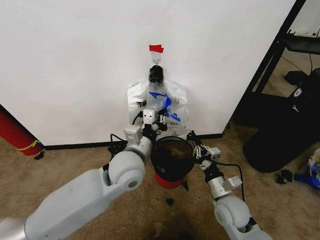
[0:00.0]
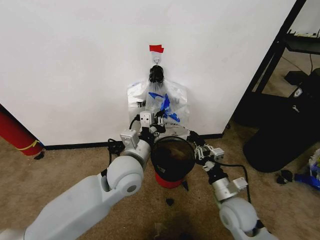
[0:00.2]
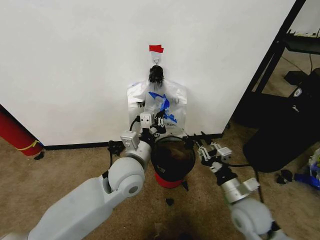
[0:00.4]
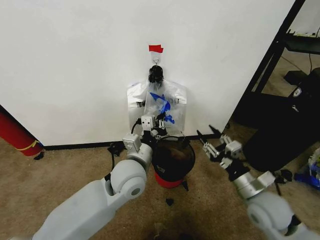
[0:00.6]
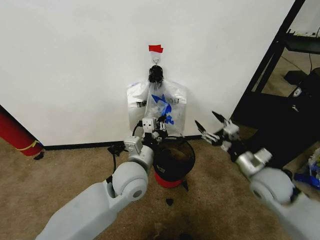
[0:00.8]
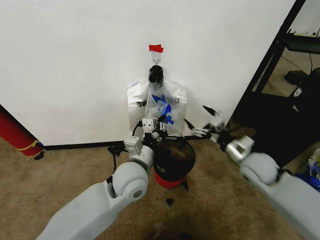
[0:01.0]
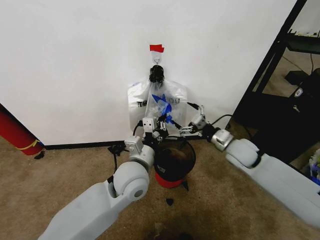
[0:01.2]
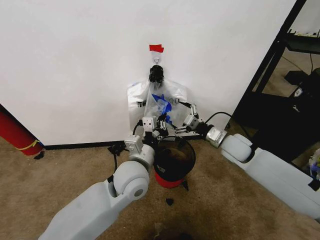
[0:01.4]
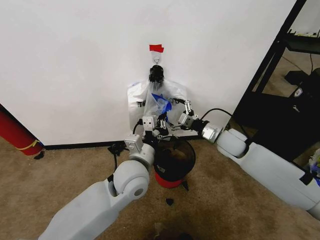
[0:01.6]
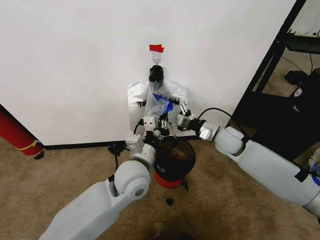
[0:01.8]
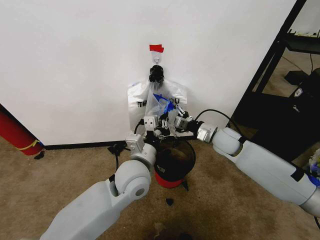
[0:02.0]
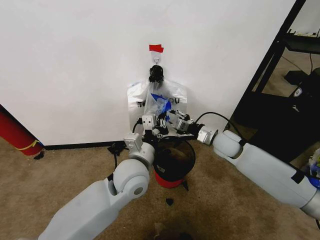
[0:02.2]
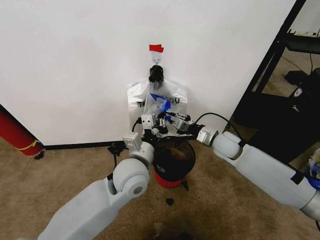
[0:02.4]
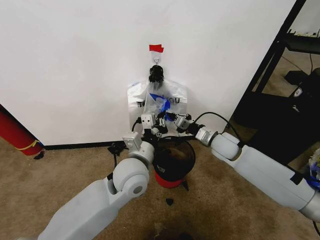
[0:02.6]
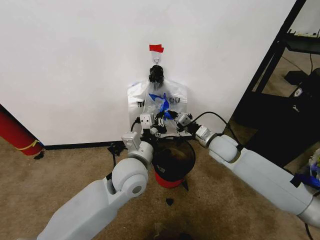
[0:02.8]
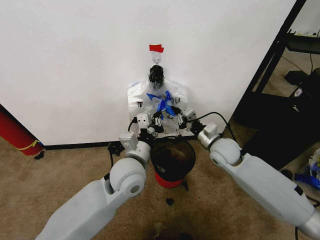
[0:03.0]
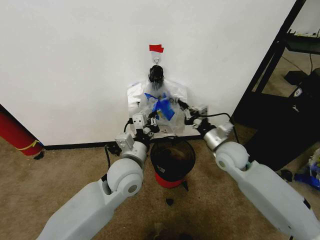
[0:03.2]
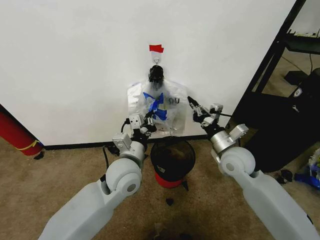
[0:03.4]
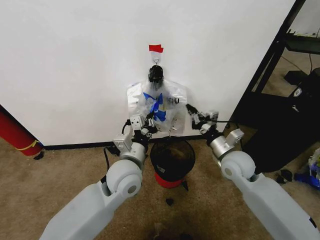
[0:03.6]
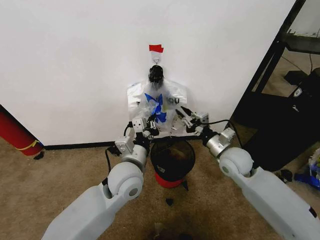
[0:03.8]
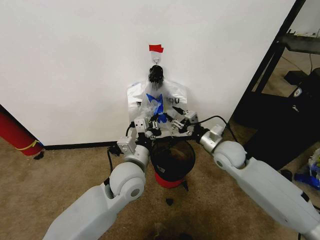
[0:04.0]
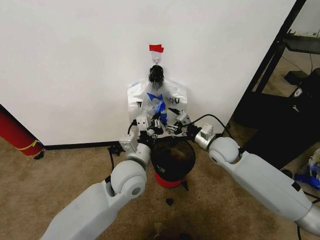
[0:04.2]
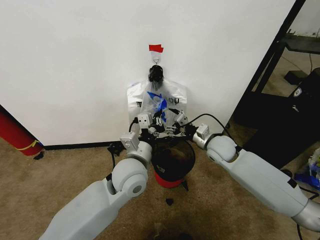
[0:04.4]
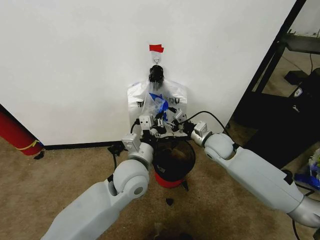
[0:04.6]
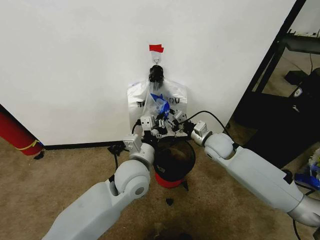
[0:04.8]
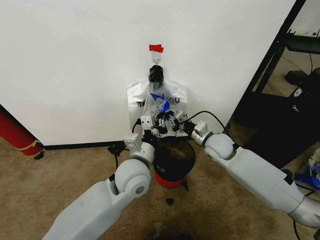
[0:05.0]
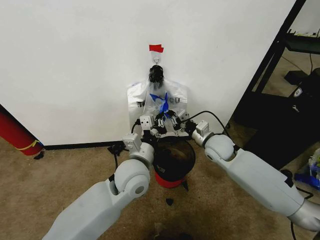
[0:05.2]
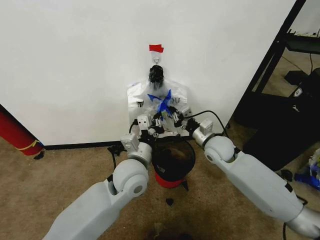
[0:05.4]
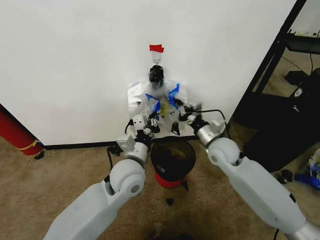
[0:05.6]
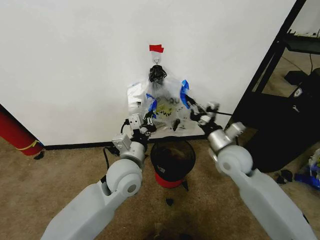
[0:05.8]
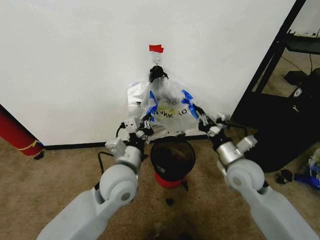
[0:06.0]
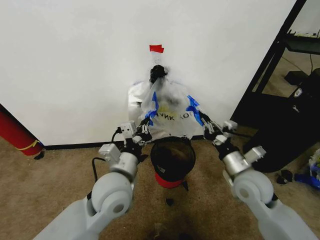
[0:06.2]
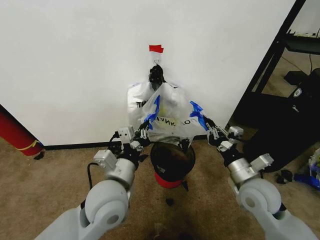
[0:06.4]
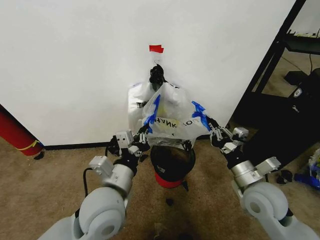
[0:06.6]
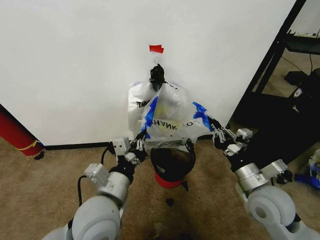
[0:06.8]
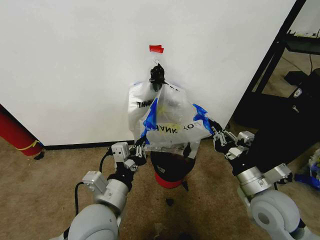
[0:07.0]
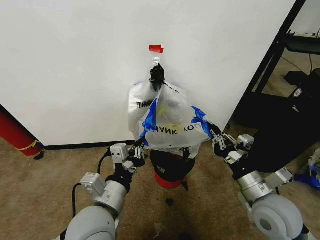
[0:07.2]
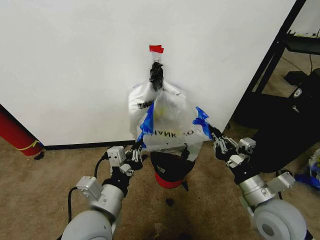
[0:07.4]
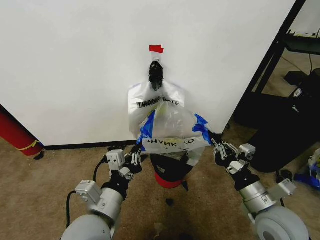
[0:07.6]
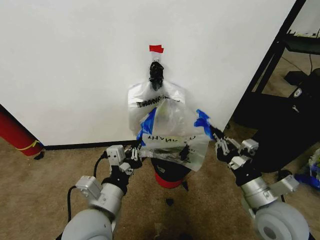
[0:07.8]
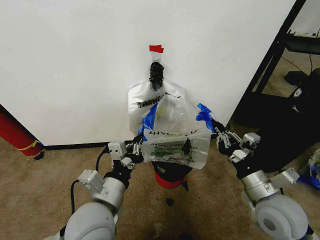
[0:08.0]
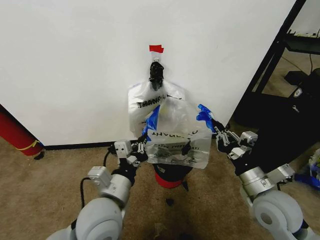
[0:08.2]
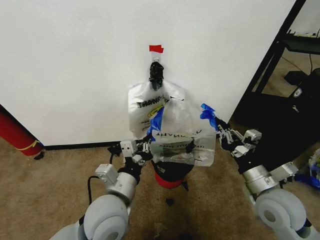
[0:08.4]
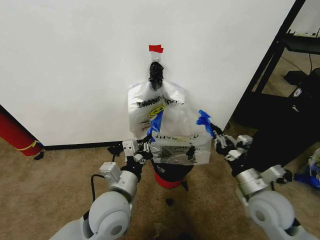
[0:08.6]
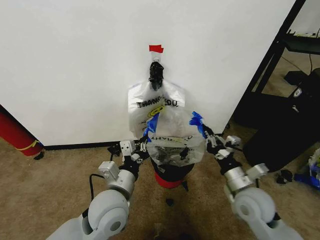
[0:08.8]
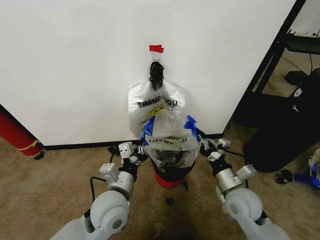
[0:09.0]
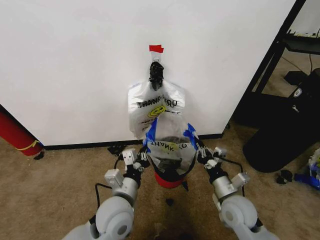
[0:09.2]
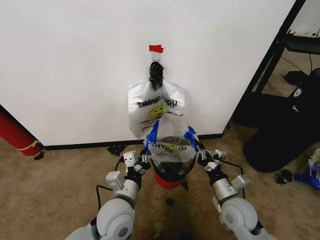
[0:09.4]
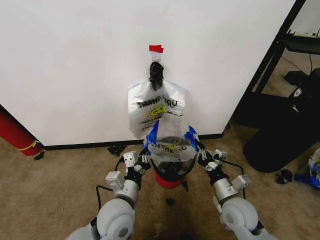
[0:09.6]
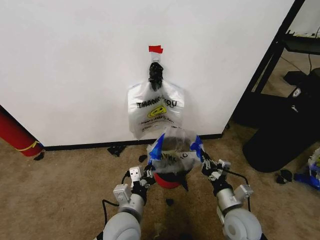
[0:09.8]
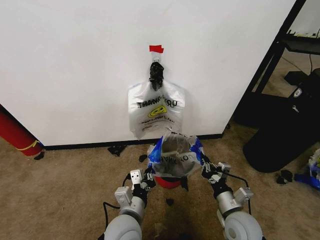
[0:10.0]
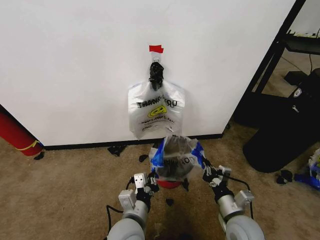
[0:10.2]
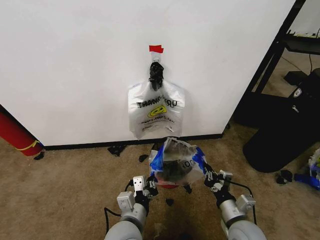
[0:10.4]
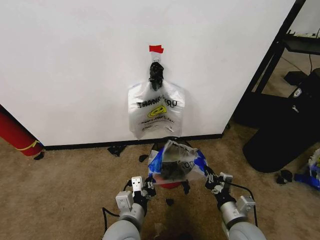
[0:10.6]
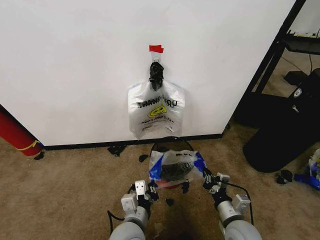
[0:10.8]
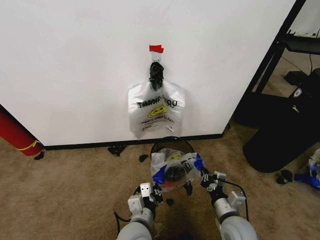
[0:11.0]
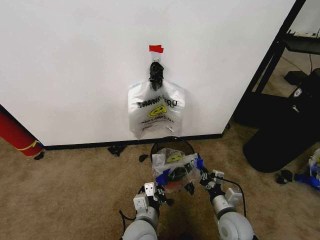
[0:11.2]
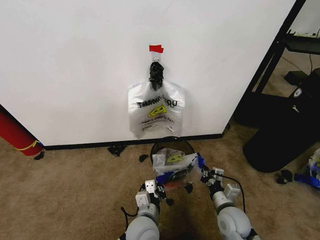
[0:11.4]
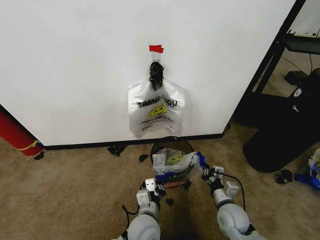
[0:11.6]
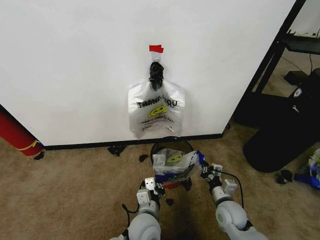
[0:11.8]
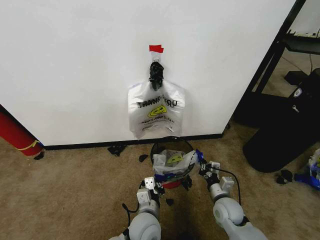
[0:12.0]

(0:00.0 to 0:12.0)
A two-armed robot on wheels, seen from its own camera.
Task of the whole recording: Pick up the garbage bag from the wall and place it over the trash bin.
0:00.0 - 0:01.6: The right gripper goes about 20 cm forward and upward, and opens.
0:01.6 - 0:03.0: The right gripper closes up.
0:03.0 - 0:04.4: The right gripper opens its fingers.
0:04.4 - 0:06.0: The right gripper shifts about 10 cm backward, and closes up.
0:06.0 - 0:07.6: Both grippers travel together backward, roughly 15 cm.
0:07.6 - 0:09.0: Both grippers travel together forward and downward, roughly 10 cm.
0:09.0 - 0:10.4: The left gripper heads backward, covering approximately 5 cm. Meanwhile the right gripper heads backward and downward, covering approximately 10 cm.
0:10.4 - 0:12.0: The right gripper is displaced forward and downward by some 10 cm; the left gripper moves downward, about 5 cm.

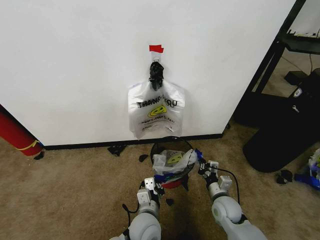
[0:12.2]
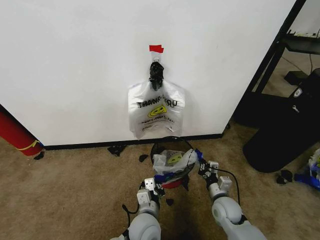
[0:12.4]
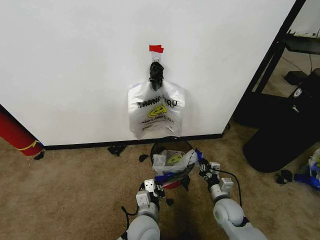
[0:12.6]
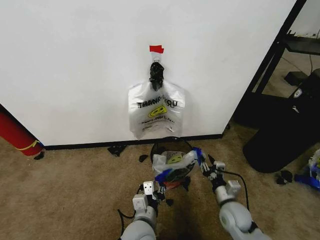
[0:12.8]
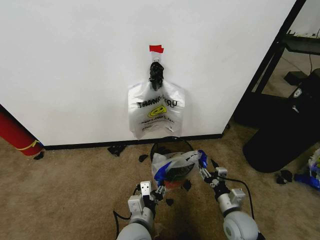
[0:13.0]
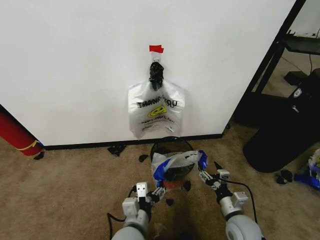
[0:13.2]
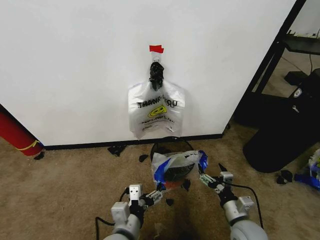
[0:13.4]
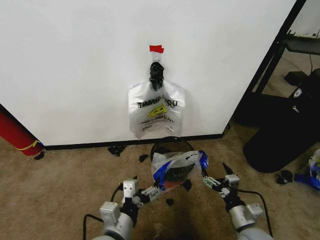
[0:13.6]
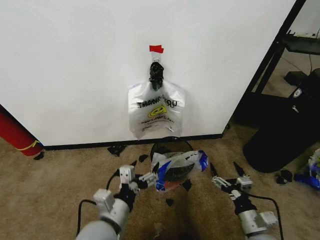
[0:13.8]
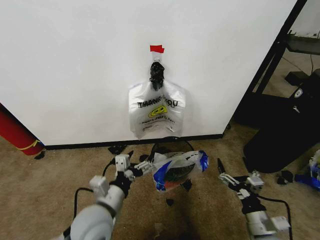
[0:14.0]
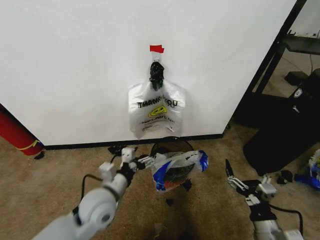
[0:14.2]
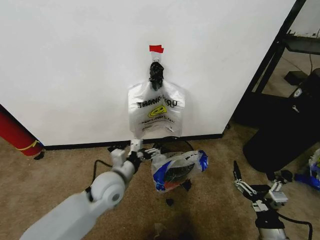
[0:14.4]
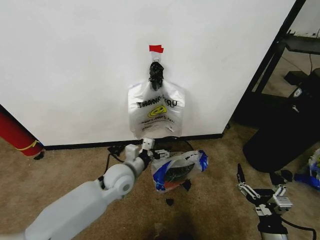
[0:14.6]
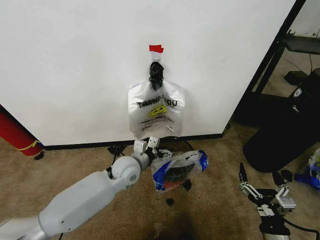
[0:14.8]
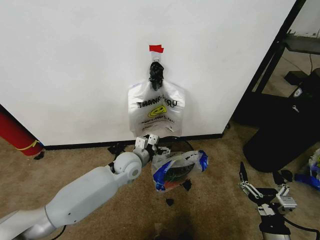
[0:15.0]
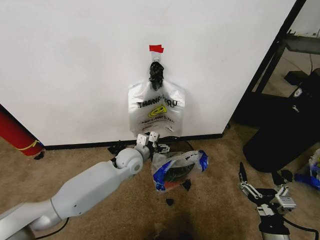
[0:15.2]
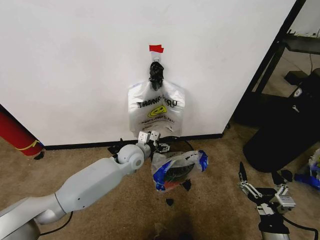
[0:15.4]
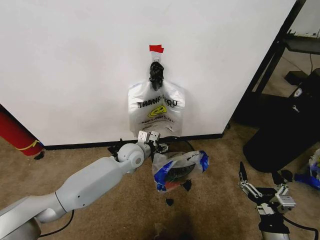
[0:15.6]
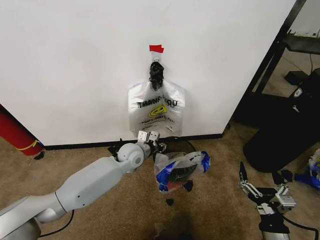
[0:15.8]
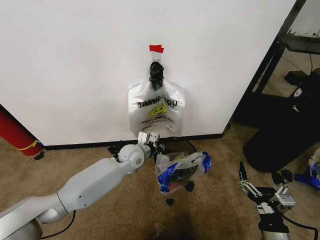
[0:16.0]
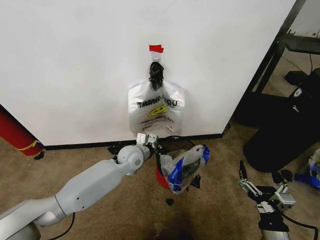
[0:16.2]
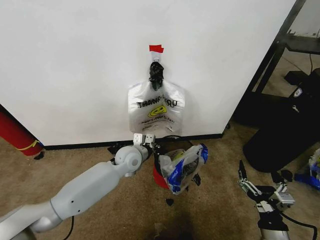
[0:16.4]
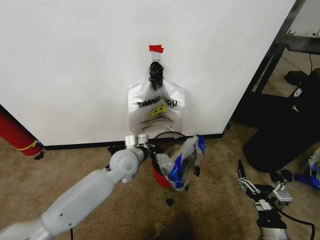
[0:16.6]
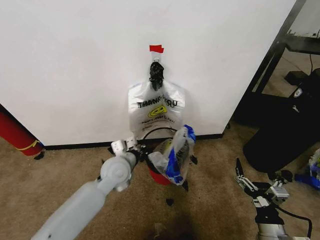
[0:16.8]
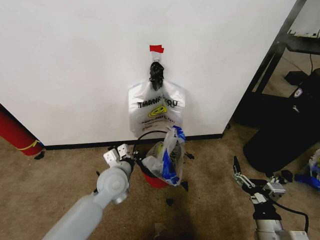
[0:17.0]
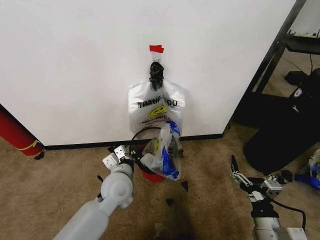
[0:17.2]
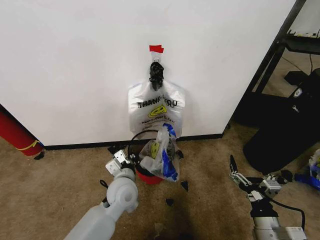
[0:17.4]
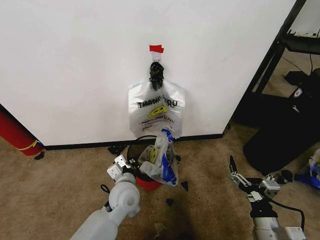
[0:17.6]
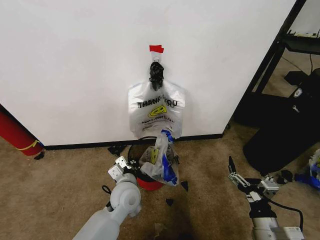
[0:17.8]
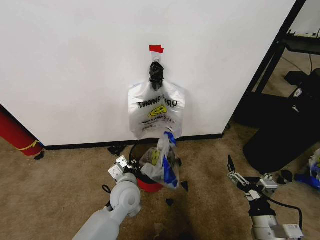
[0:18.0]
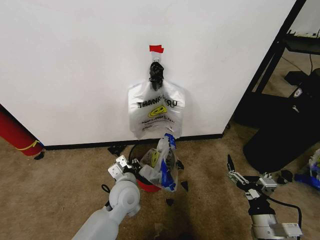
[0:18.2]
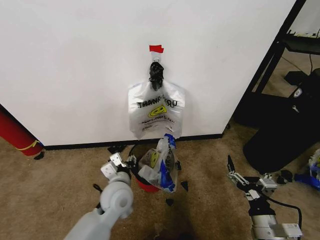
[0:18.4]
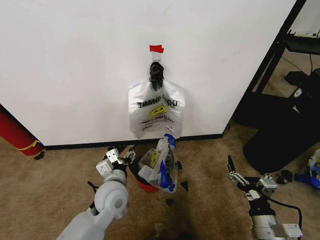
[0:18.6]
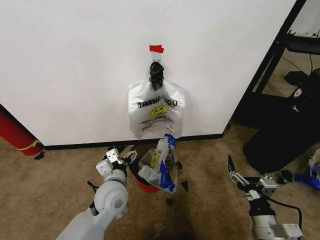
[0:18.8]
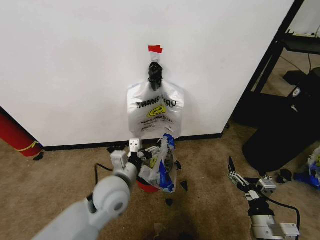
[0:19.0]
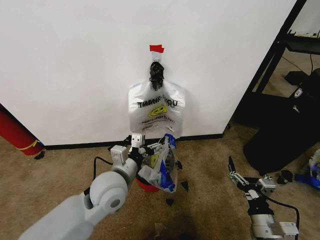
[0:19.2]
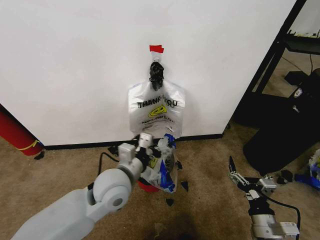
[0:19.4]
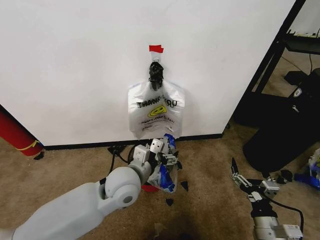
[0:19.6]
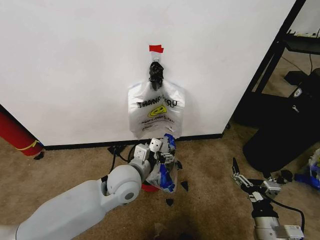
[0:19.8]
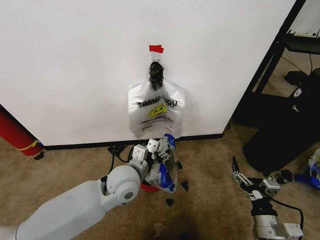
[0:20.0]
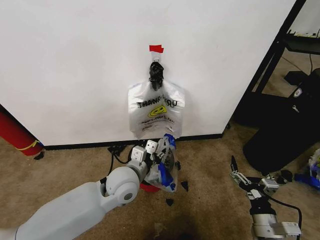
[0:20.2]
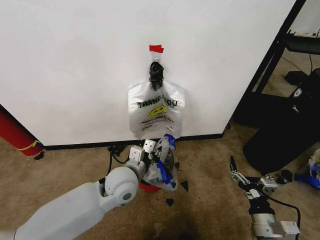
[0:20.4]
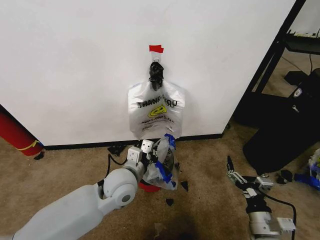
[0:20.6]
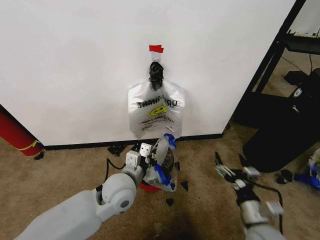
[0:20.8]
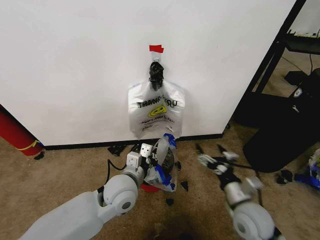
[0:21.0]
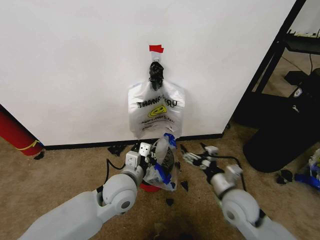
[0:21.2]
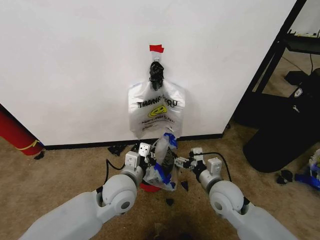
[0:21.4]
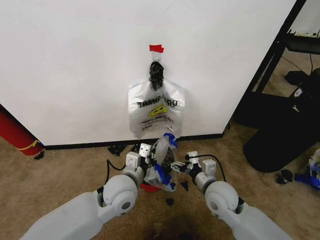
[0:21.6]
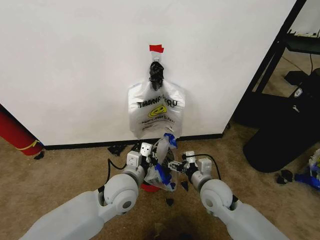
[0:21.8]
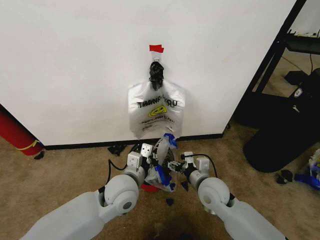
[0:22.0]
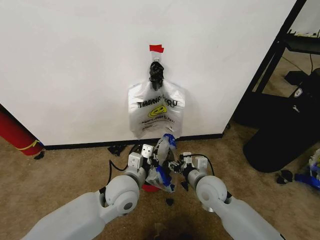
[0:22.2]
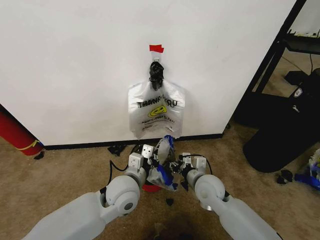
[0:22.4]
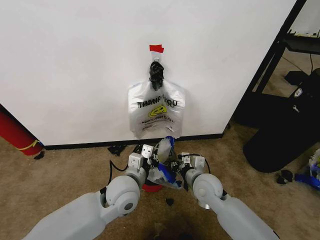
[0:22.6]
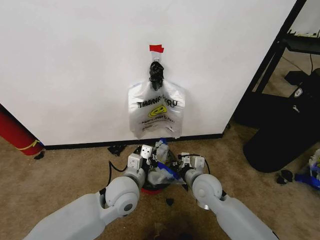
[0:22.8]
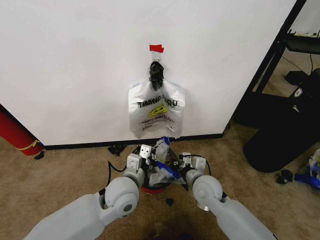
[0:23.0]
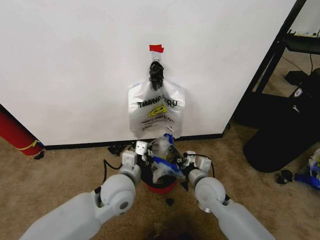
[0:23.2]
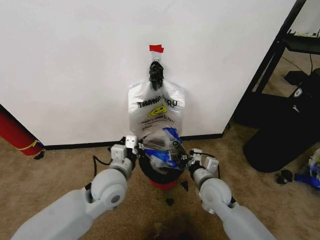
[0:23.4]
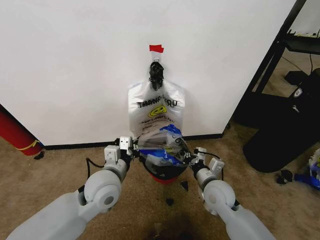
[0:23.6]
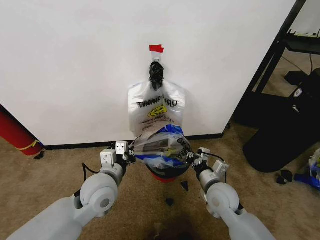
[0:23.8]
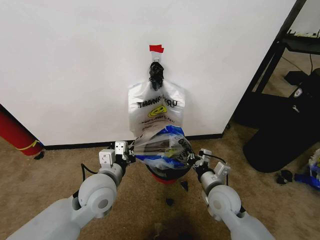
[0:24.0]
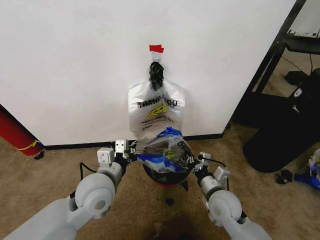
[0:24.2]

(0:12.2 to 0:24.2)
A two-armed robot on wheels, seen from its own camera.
Task of the whole recording: Pick up the garbage bag from the wall and place it over the trash bin.
0:12.2 - 0:13.8: The right gripper goes roughly 15 cm backward and upward, and opens its fingers. The left gripper is displaced upward, to the left and backward by approximately 15 cm, and opens.
0:13.8 - 0:15.2: The left gripper goes some 25 cm forward. The right gripper shifts approximately 5 cm backward.
0:15.2 - 0:16.6: The left gripper closes.
0:16.6 - 0:18.2: The left gripper is displaced backward by about 10 cm.
0:18.2 - 0:19.8: The left gripper goes some 10 cm upward, and opens its fingers.
0:19.8 - 0:21.2: The right gripper moves forward, to the left and upward, roughly 15 cm. The left gripper closes its fingers.
0:21.2 - 0:22.6: The right gripper is displaced to the left and forward by about 10 cm, and closes its fingers.
0:22.6 - 0:24.2: The left gripper travels to the left by about 5 cm, while the right gripper travels backward by roughly 5 cm.
